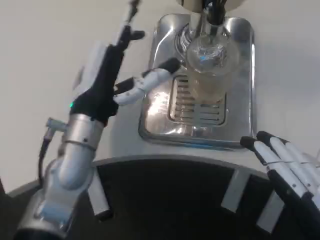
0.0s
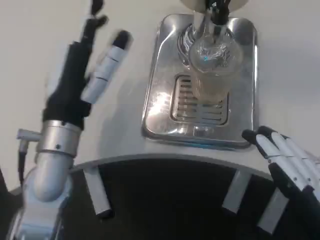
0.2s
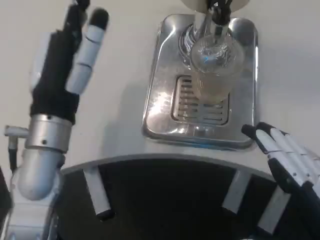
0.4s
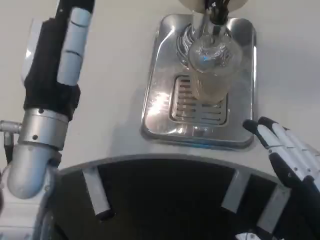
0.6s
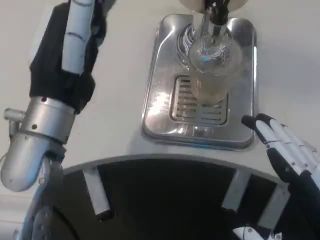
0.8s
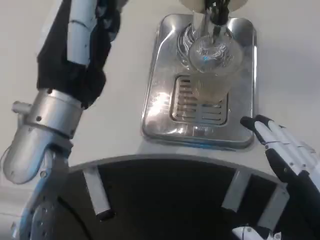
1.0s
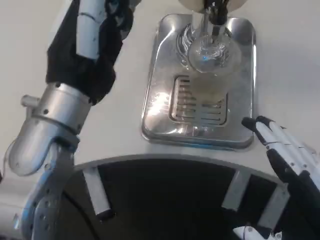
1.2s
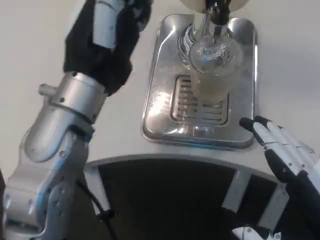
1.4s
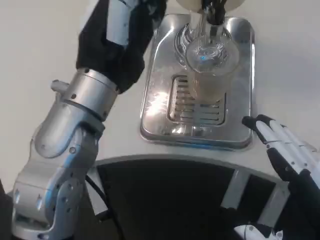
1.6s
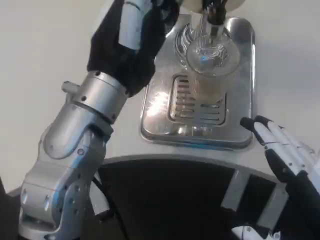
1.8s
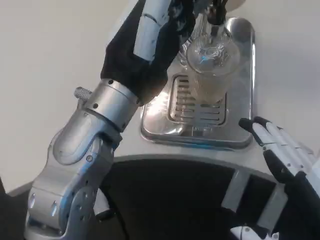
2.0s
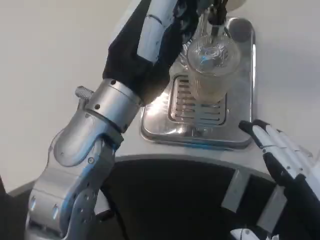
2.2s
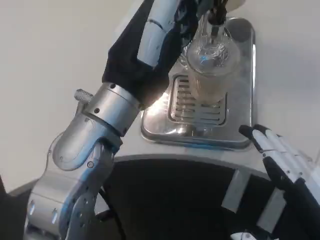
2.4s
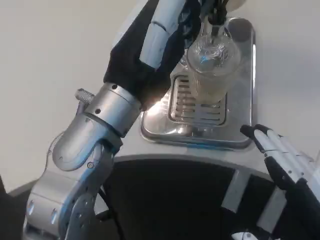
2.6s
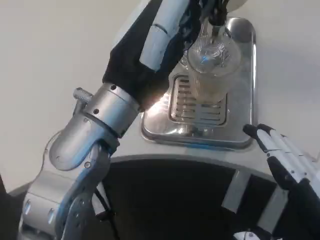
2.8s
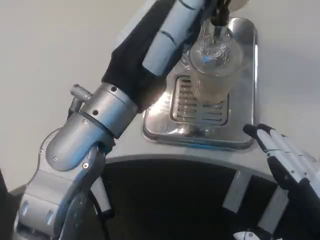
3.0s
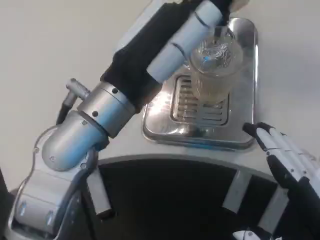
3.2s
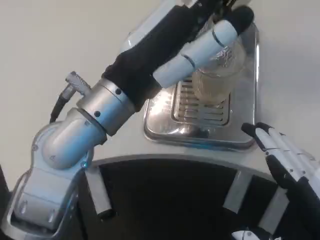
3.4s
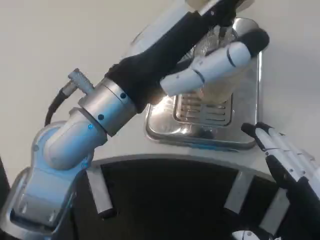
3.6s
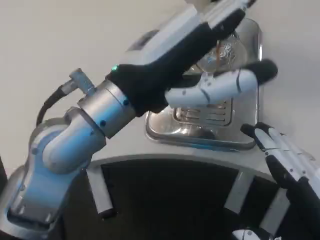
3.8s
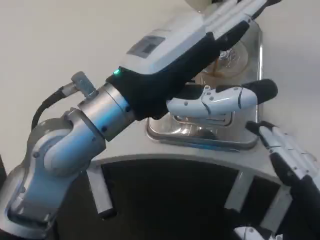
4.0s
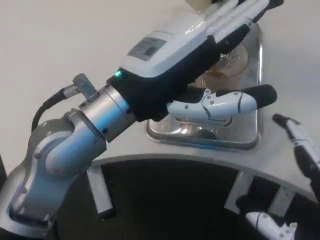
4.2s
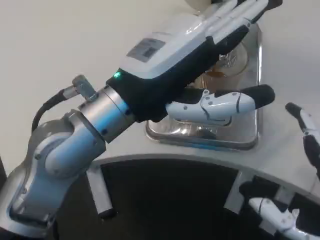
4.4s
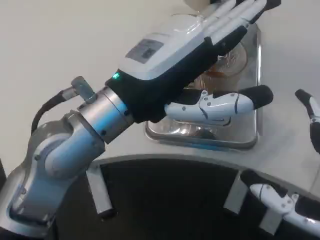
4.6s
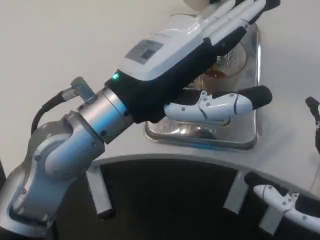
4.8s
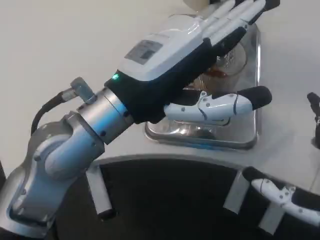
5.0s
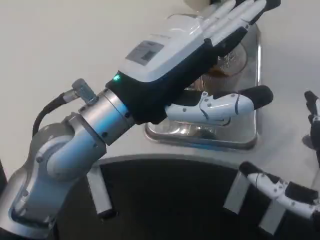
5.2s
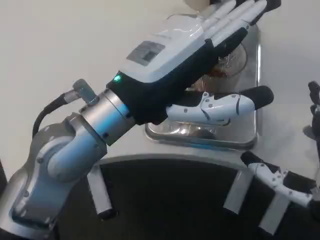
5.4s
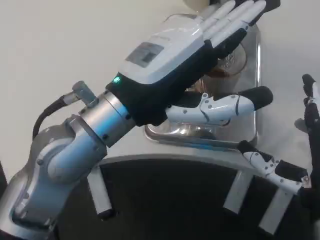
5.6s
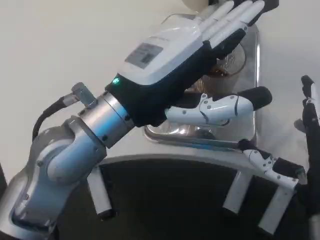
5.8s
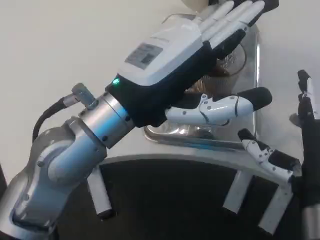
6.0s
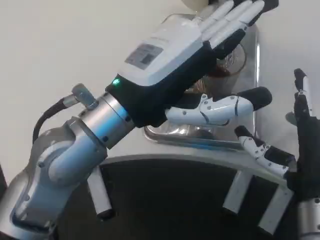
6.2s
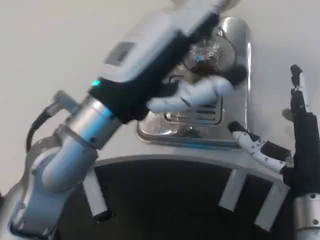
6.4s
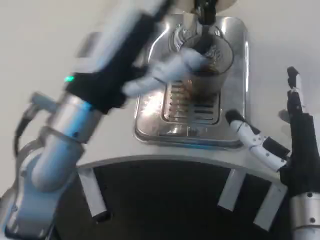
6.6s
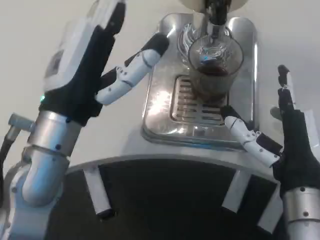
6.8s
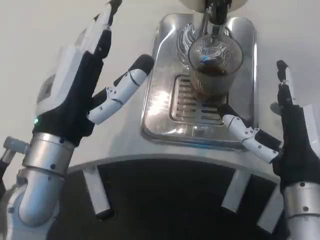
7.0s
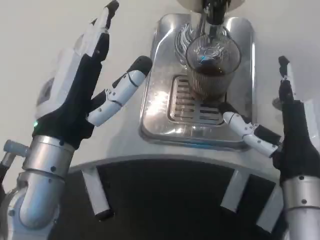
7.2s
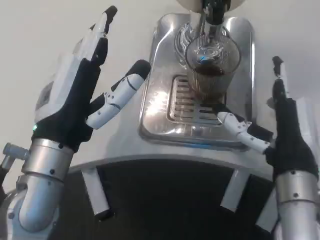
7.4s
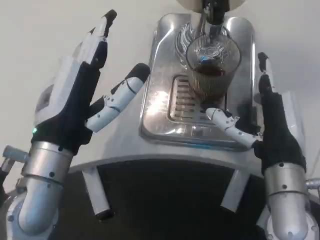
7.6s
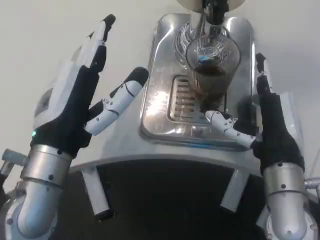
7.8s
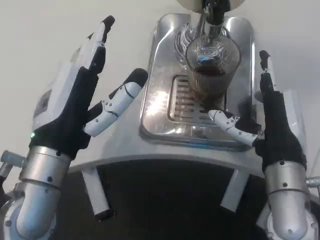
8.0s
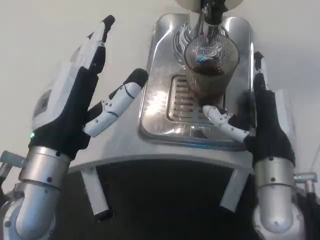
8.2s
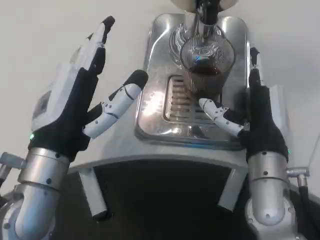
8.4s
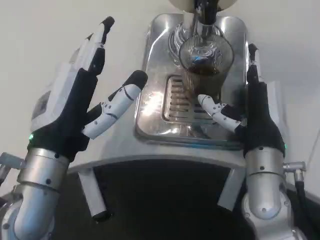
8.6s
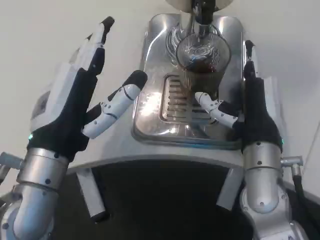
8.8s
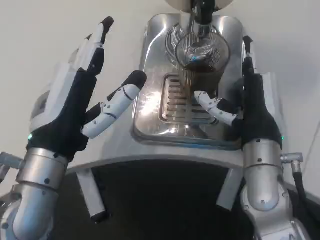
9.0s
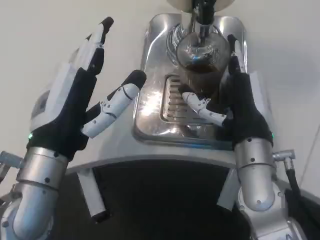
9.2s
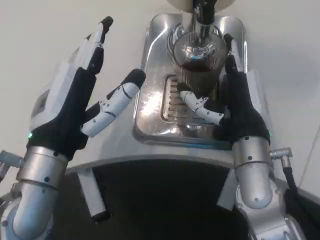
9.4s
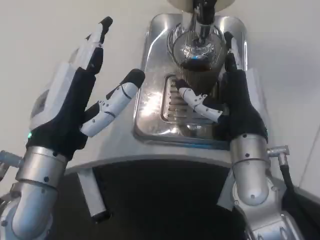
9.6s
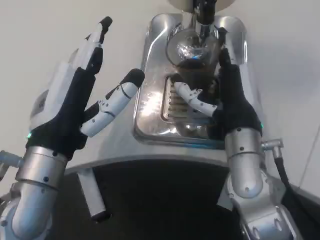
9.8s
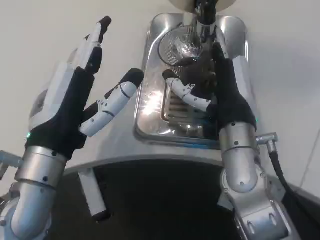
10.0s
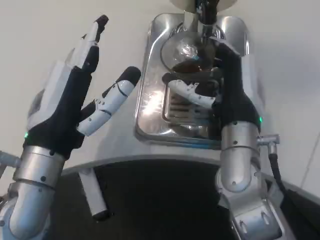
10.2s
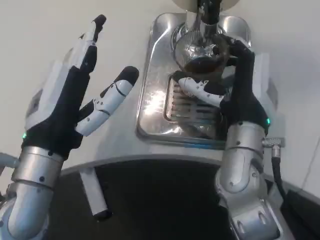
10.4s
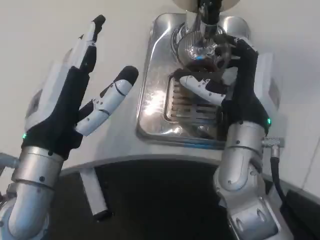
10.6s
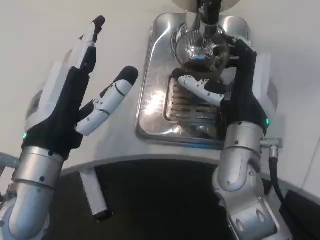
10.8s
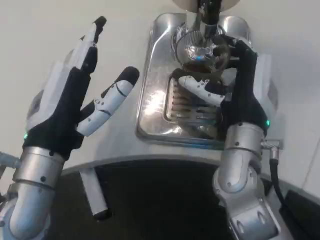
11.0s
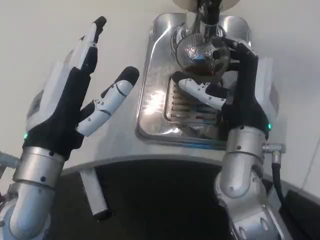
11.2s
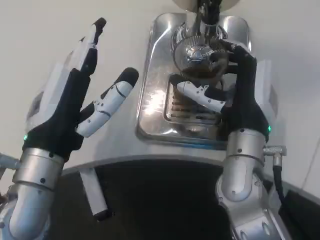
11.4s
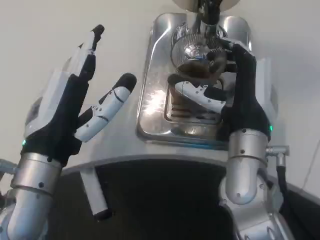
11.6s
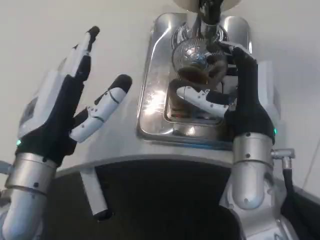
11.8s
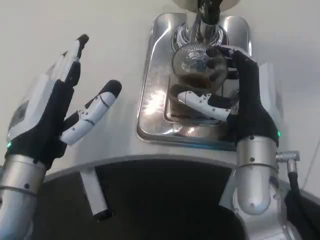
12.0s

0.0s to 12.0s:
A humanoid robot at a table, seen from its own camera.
Task of the whole recording: Grasp the cup under the faucet to collect the drink, then remove the cup.
0.0s to 1.6s: The left hand heads upward, covering some 10 cm.
4.4s to 6.0s: The right hand is displaced forward by approximately 10 cm.
6.0s to 7.6s: The left hand shifts about 5 cm downward. Meanwhile the right hand goes about 5 cm forward.

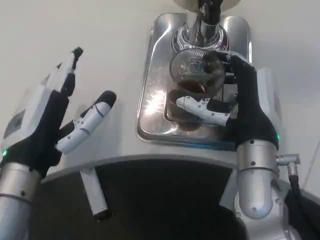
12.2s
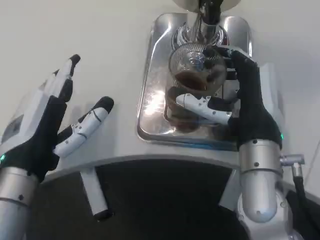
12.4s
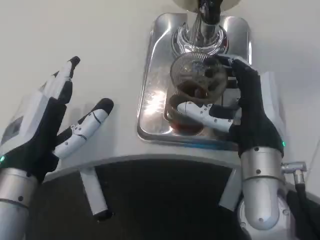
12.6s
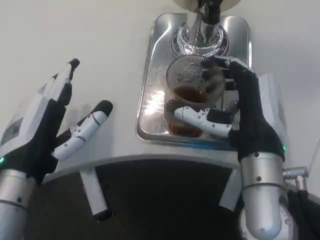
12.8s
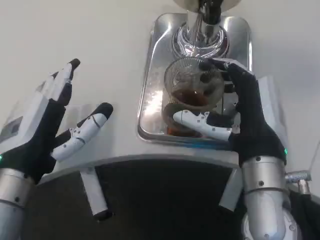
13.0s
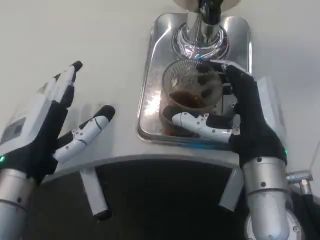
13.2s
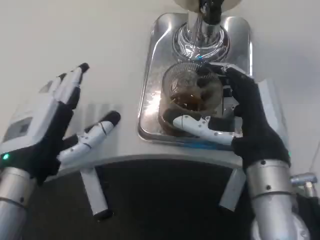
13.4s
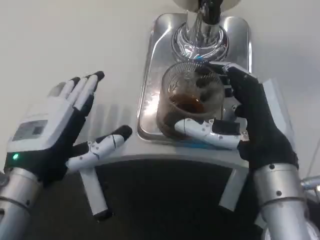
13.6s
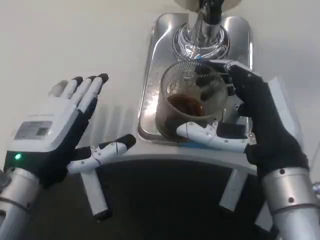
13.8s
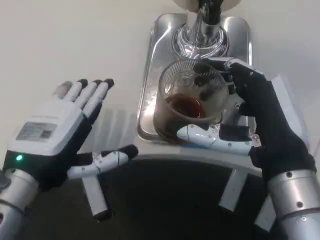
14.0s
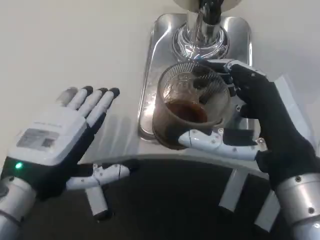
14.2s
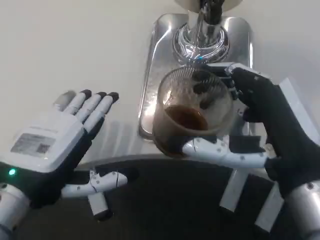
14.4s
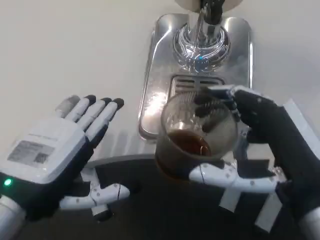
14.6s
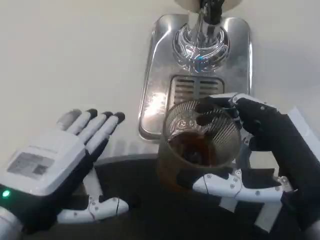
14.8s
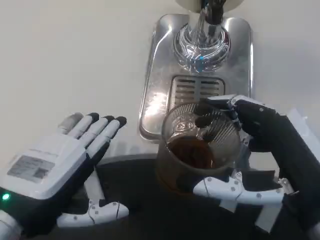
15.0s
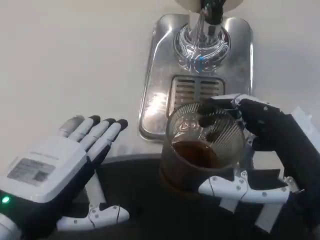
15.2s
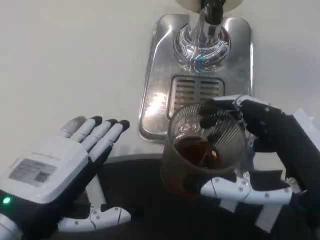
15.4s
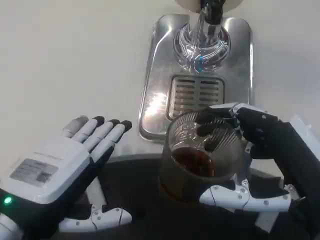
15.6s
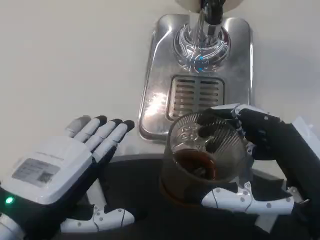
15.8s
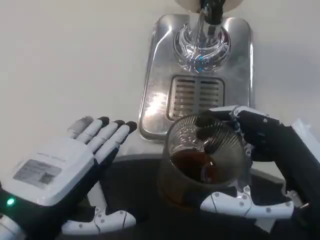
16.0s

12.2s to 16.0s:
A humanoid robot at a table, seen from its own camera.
Task of the whole recording: Grasp the cup under the faucet to collect the drink, then remove the cup.
13.4s to 14.8s: The right hand moves backward and to the right, some 10 cm. The left hand travels backward by some 5 cm.

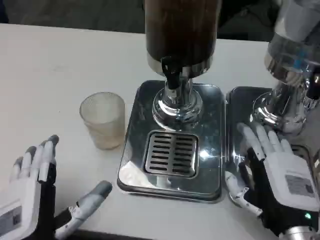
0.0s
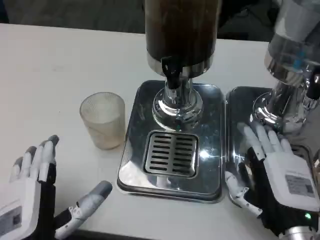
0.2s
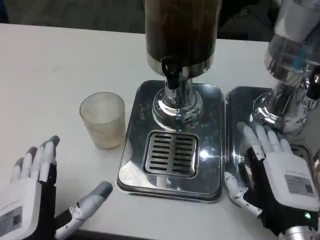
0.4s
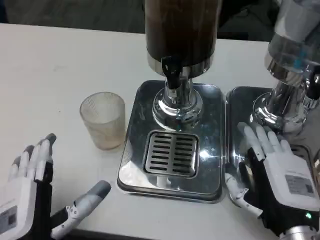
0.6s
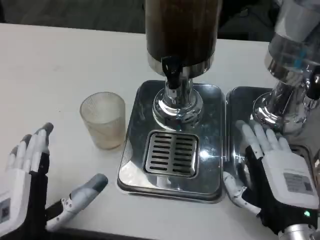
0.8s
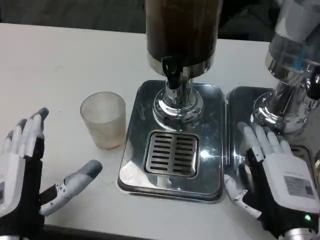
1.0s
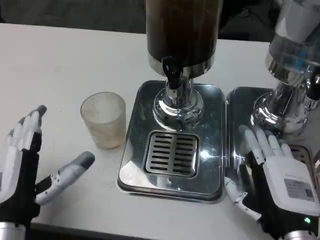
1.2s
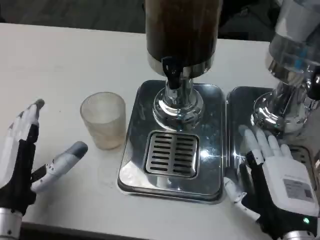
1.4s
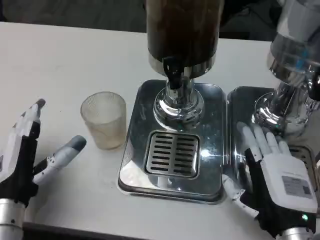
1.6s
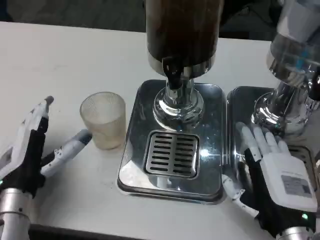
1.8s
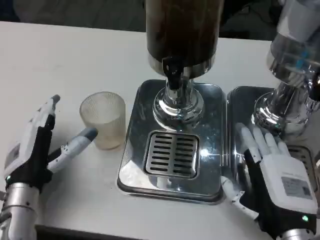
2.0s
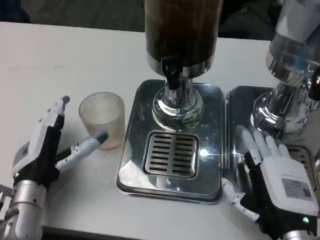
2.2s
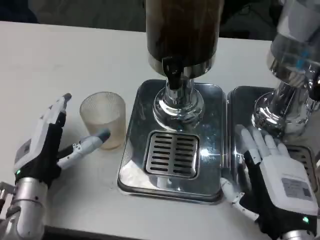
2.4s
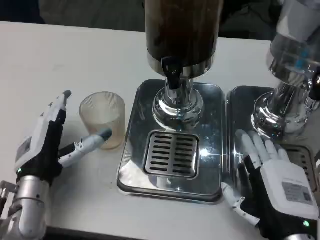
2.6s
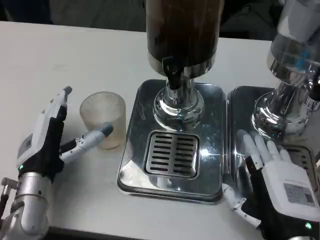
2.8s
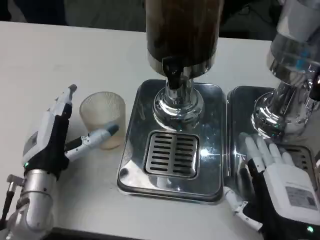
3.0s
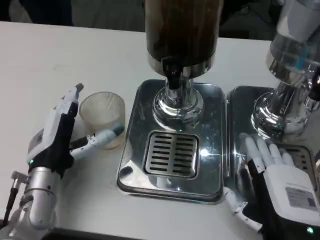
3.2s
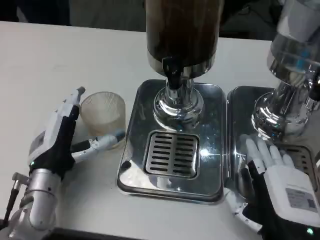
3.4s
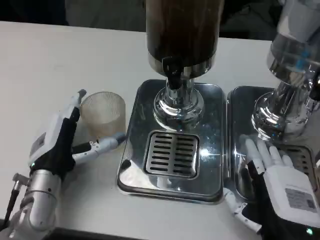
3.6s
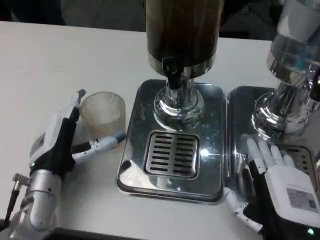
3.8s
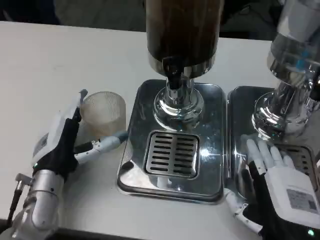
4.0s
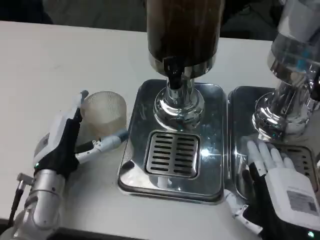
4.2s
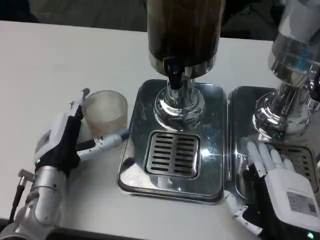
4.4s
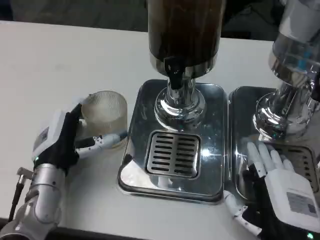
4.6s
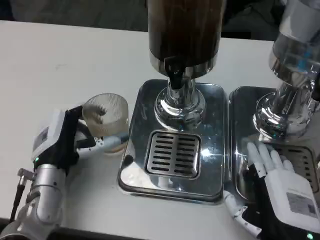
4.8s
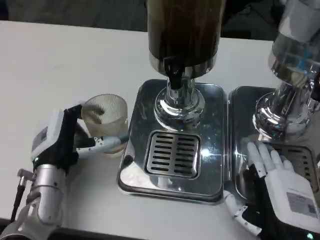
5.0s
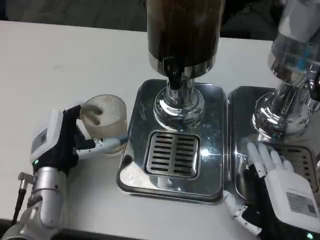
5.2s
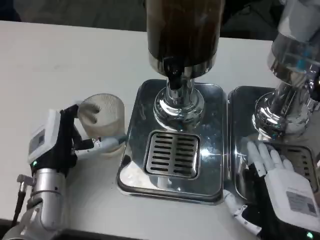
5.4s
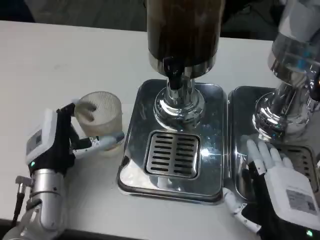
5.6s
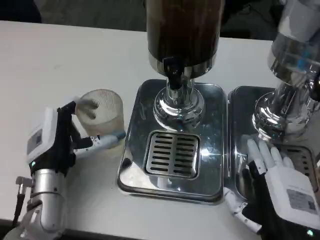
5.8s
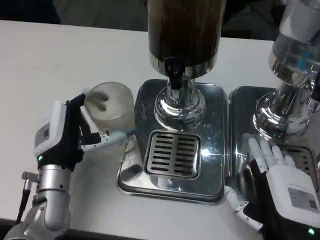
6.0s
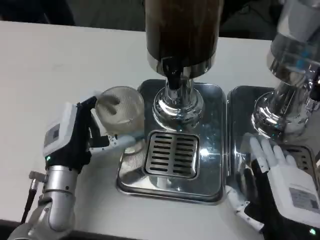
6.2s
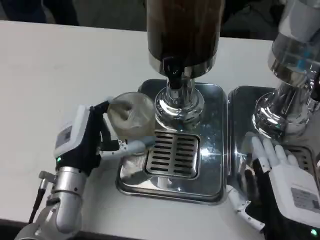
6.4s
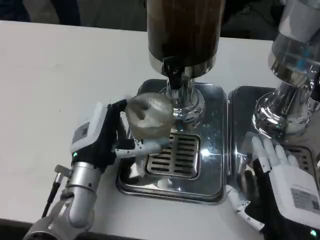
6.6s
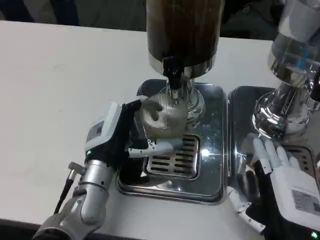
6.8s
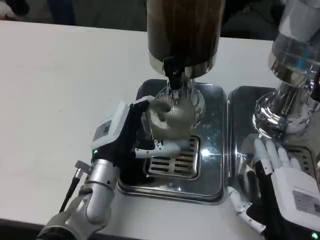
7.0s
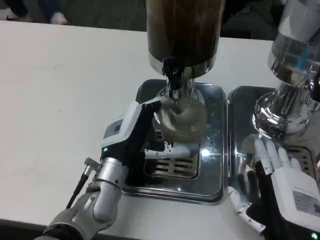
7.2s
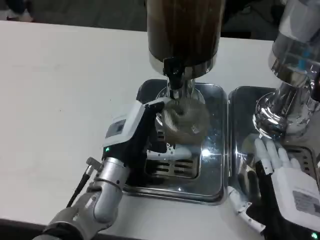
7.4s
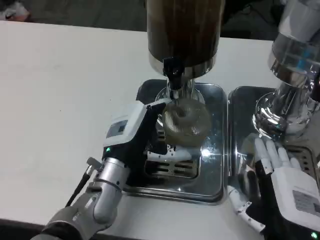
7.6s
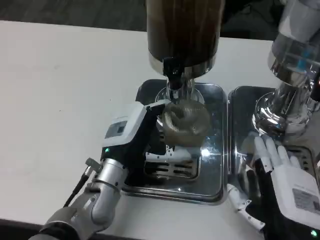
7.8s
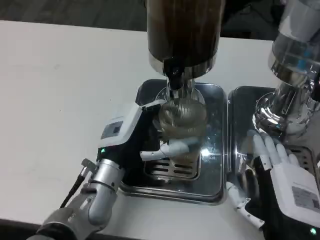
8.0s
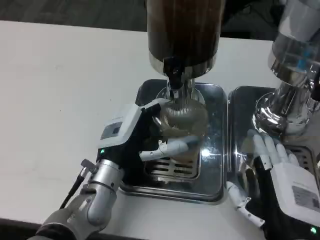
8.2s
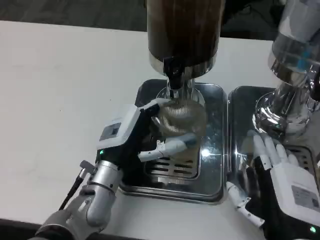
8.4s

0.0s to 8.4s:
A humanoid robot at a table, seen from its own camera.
Task of the whole recording: Grasp the cup under the faucet to collect the drink, then remove the cup.
0.0s to 1.4s: The left hand moves forward and to the left, roughly 10 cm.
1.4s to 2.8s: The left hand travels forward by about 5 cm.
2.8s to 5.6s: There are only small adjustments of the hands.
5.6s to 7.0s: The left hand moves to the right, about 5 cm.
7.0s to 8.4s: The hands stay close to where they were, moving slightly.
